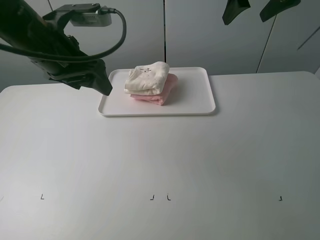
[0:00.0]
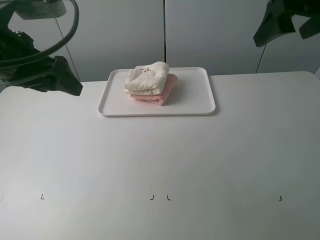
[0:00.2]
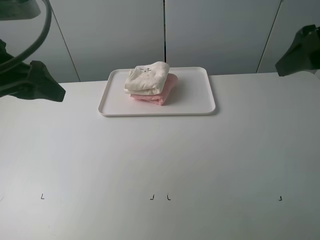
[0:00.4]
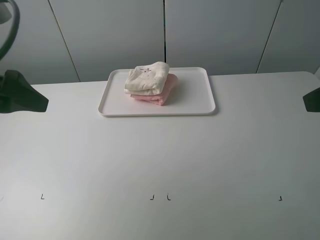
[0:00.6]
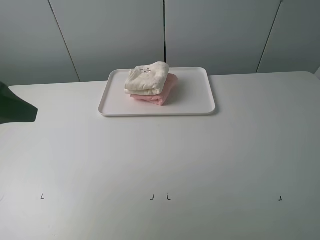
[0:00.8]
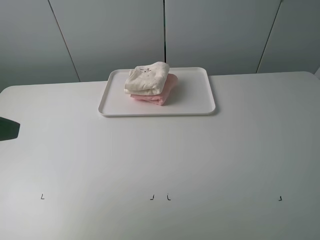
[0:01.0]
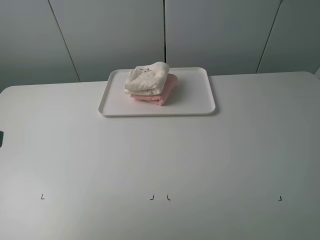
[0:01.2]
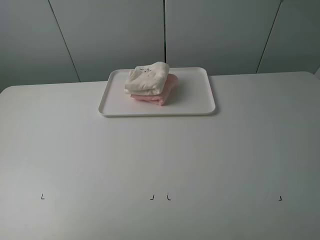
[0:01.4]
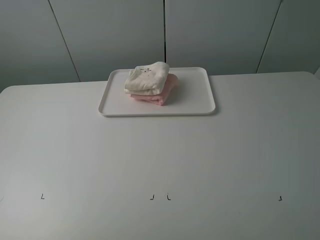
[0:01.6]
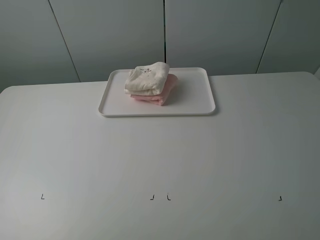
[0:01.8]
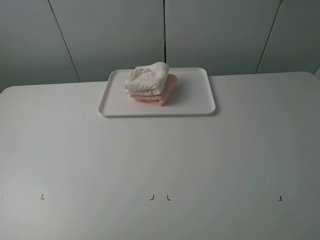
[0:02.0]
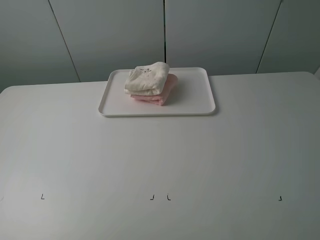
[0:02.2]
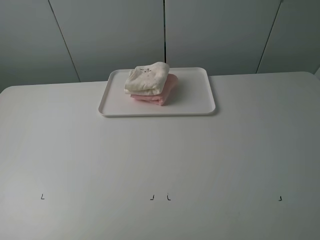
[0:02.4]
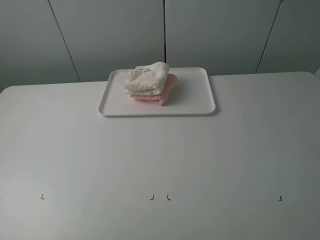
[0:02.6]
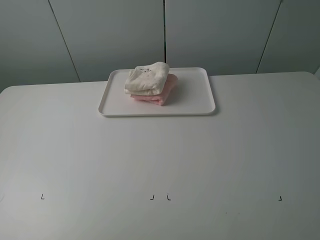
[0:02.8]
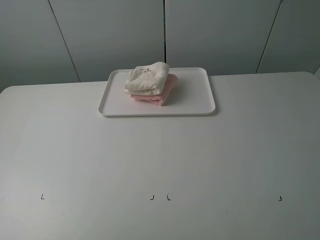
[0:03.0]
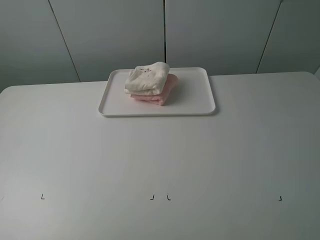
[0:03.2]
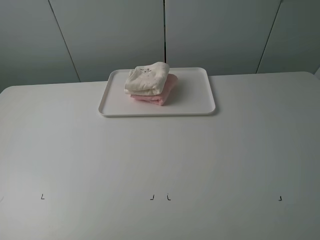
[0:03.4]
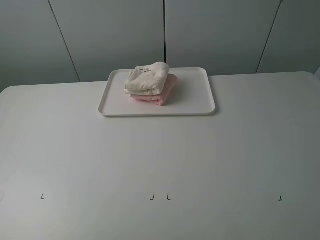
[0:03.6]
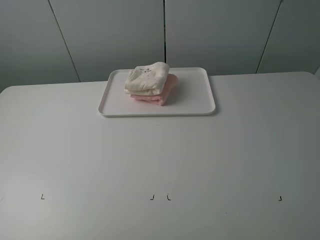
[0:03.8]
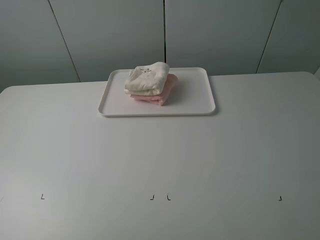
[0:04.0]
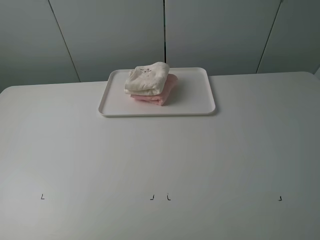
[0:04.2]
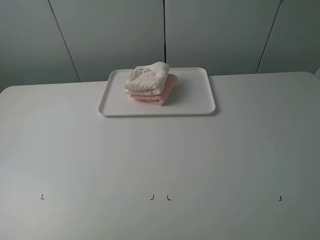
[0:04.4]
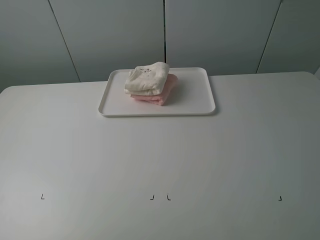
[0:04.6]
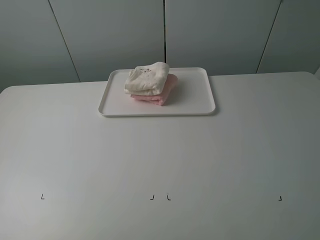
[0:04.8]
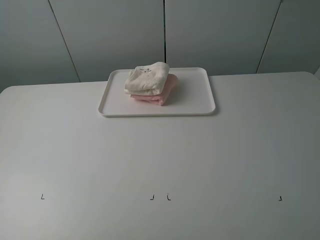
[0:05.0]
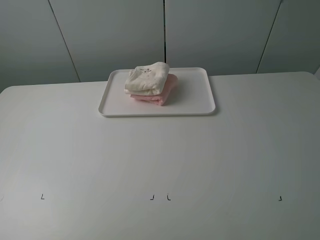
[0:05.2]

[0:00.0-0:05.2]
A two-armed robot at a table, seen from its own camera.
Task of the whole recording: fold one of the towels by two grippers and place it on the tray,then fold another towel by two grippers and place it on the folded towel.
0:00.0 to 0:01.8: The right gripper shifts roughly 40 cm backward. The left gripper shifts about 30 cm backward and to the left.
